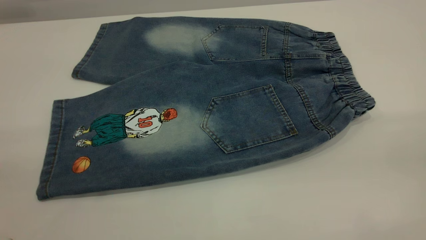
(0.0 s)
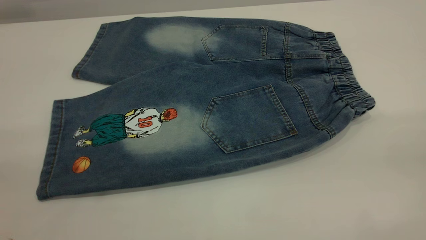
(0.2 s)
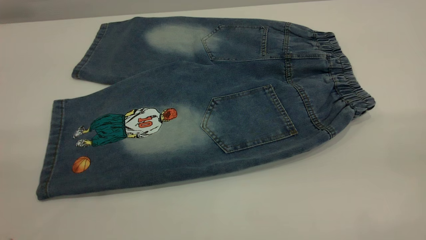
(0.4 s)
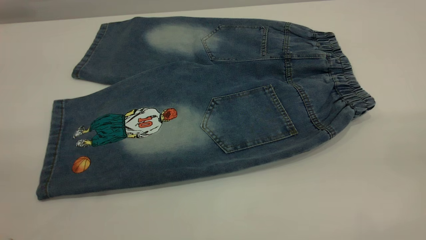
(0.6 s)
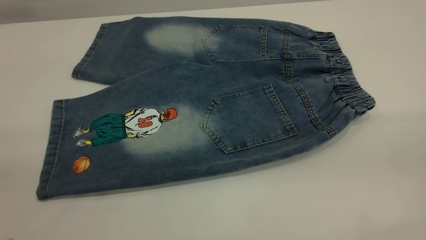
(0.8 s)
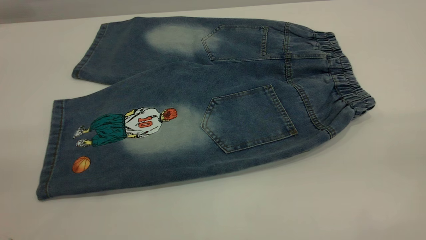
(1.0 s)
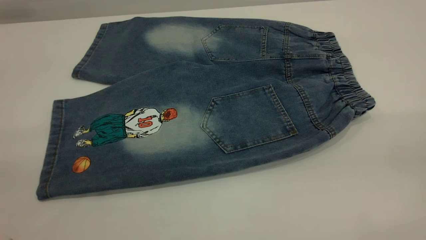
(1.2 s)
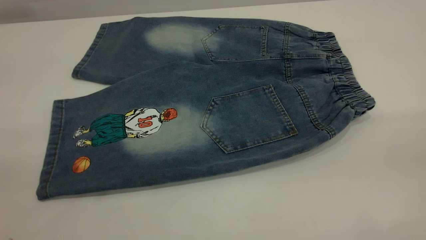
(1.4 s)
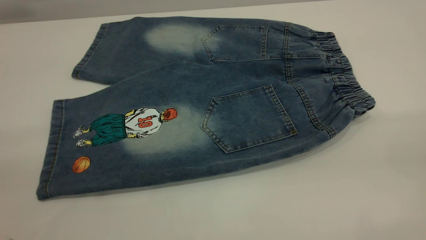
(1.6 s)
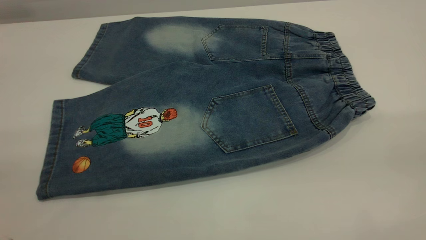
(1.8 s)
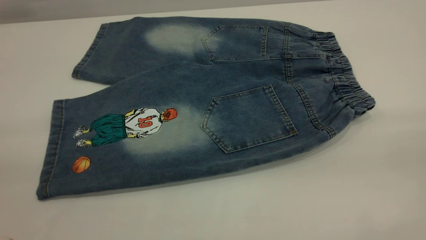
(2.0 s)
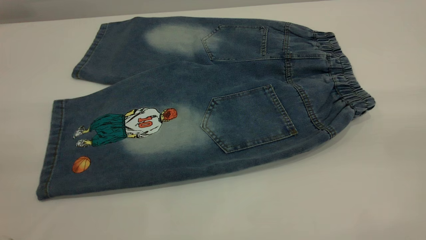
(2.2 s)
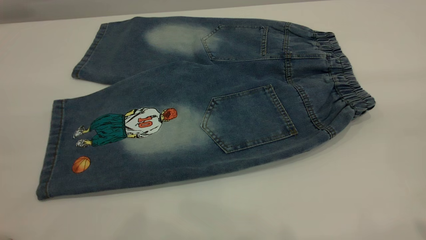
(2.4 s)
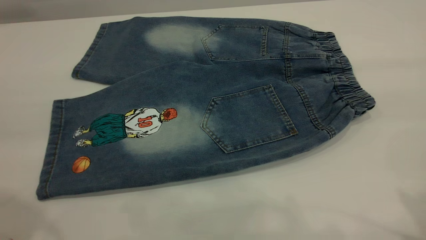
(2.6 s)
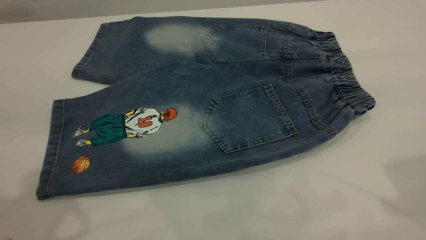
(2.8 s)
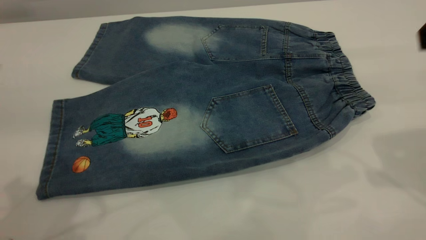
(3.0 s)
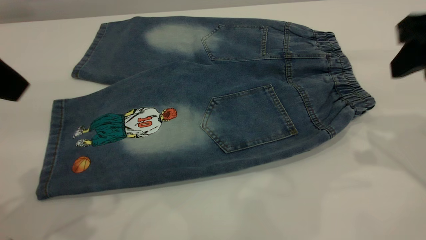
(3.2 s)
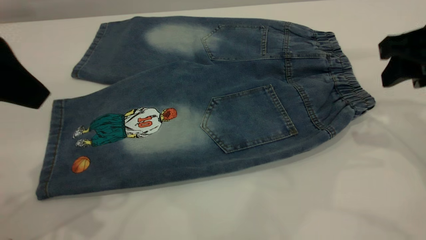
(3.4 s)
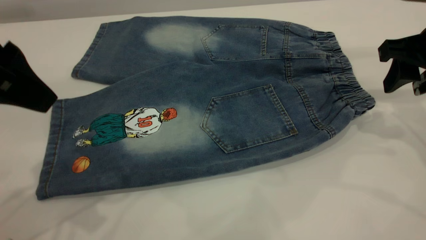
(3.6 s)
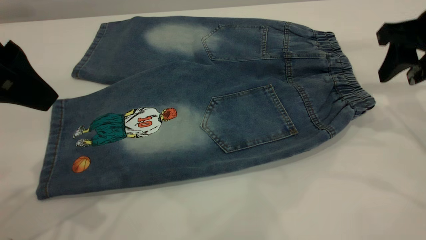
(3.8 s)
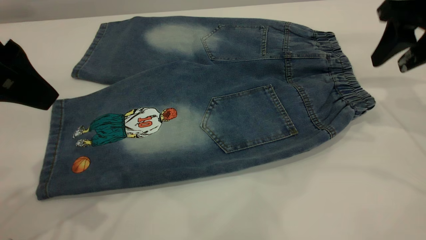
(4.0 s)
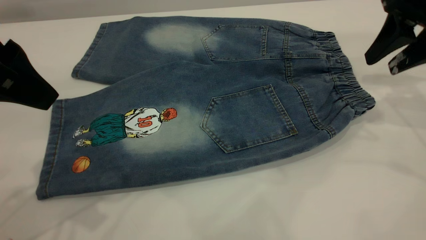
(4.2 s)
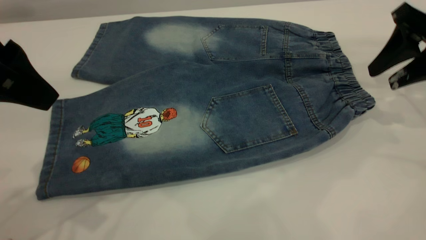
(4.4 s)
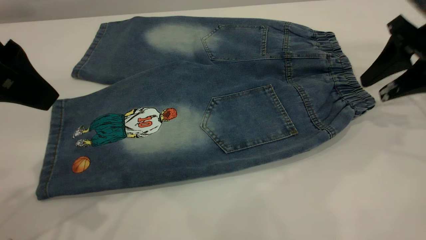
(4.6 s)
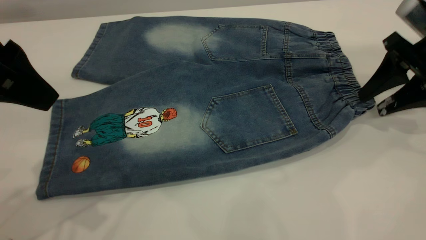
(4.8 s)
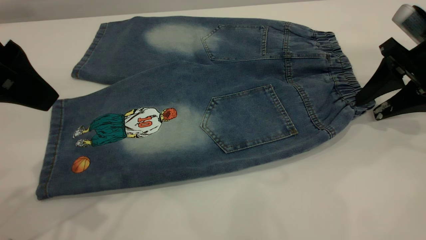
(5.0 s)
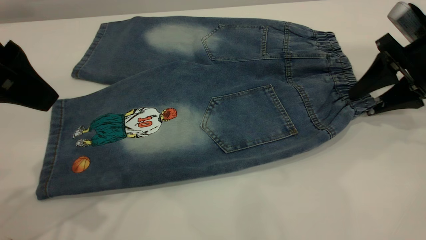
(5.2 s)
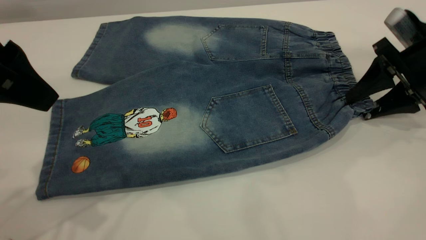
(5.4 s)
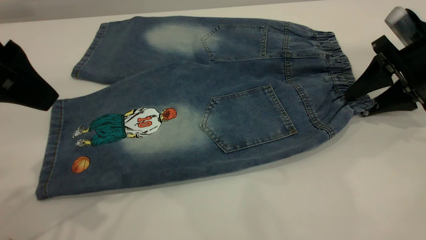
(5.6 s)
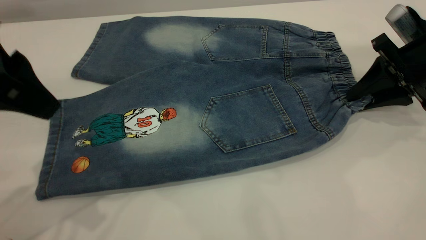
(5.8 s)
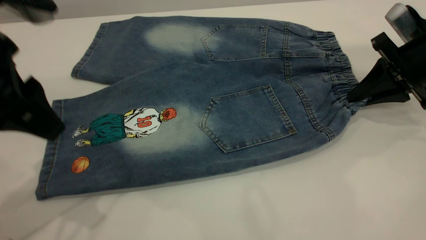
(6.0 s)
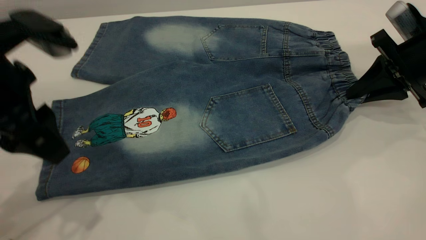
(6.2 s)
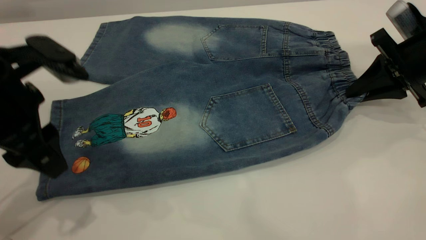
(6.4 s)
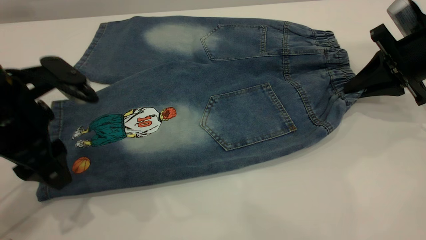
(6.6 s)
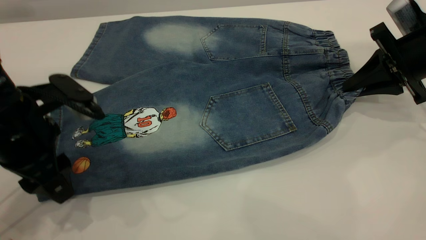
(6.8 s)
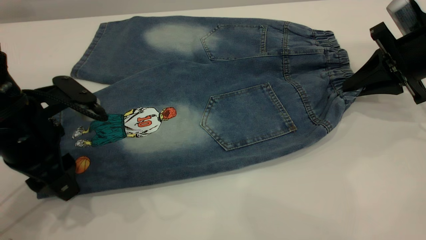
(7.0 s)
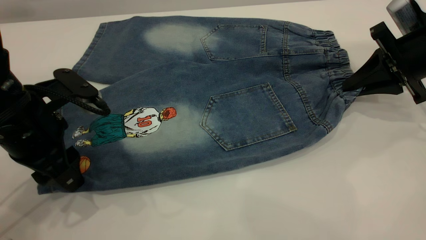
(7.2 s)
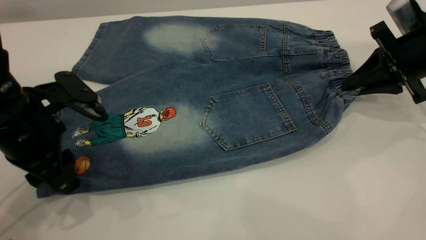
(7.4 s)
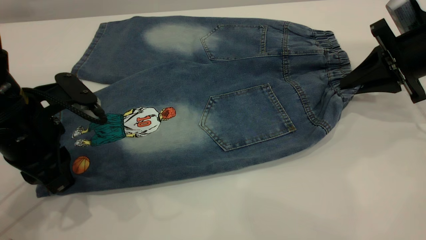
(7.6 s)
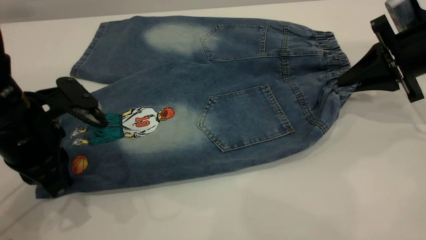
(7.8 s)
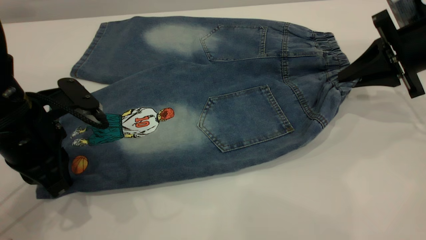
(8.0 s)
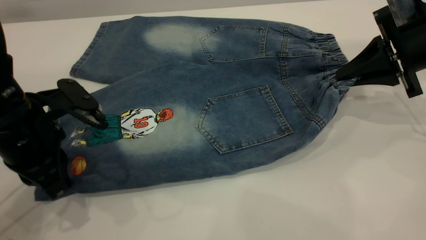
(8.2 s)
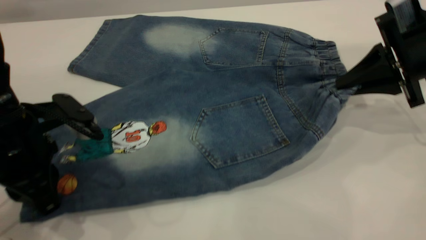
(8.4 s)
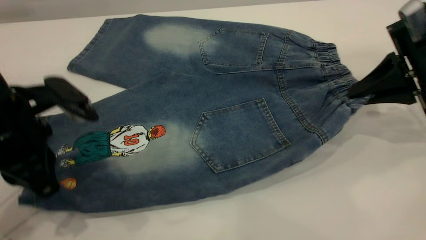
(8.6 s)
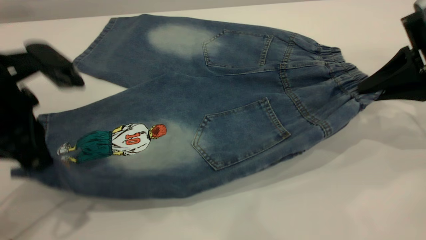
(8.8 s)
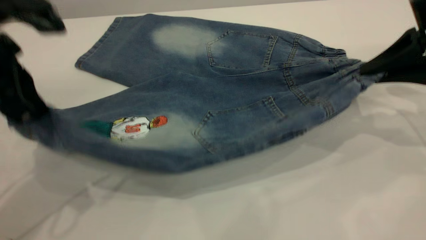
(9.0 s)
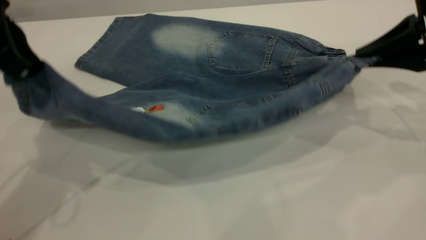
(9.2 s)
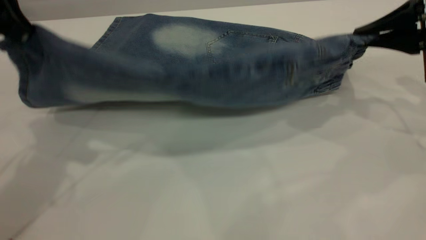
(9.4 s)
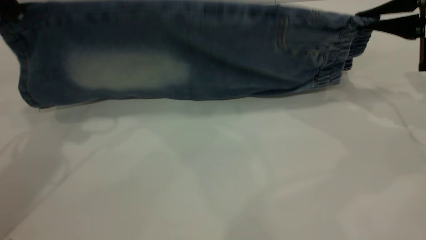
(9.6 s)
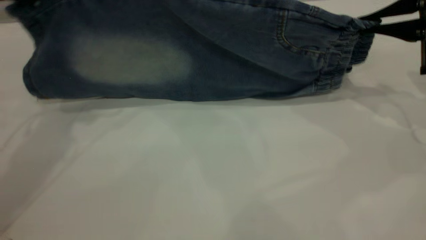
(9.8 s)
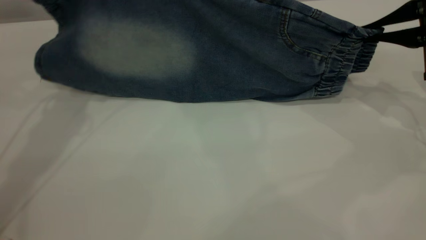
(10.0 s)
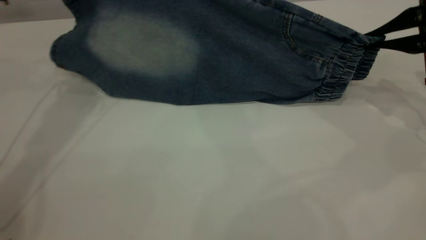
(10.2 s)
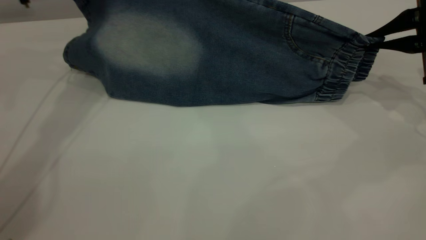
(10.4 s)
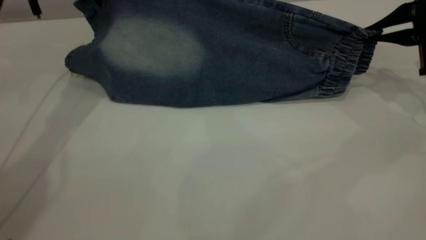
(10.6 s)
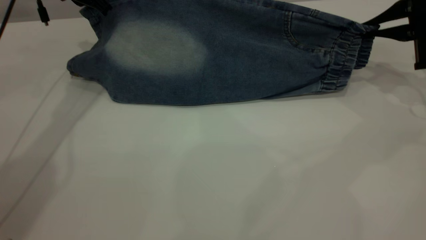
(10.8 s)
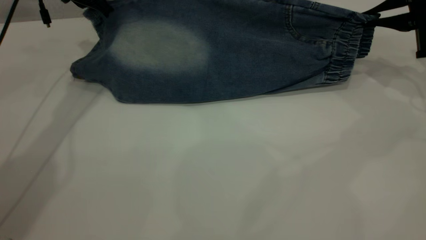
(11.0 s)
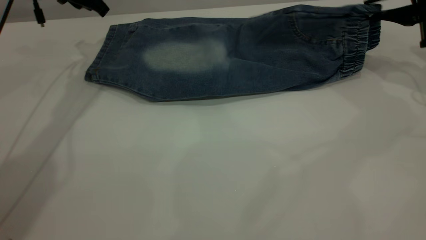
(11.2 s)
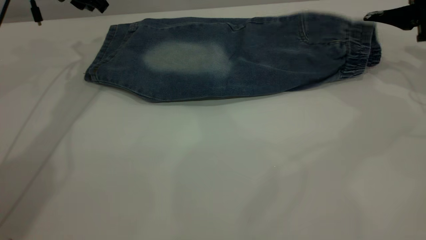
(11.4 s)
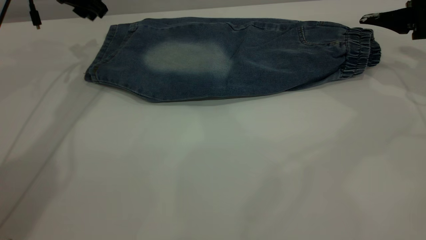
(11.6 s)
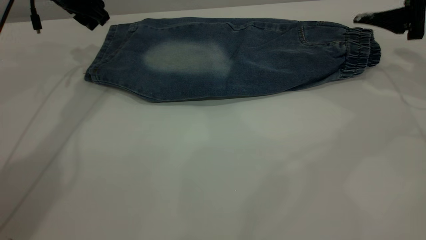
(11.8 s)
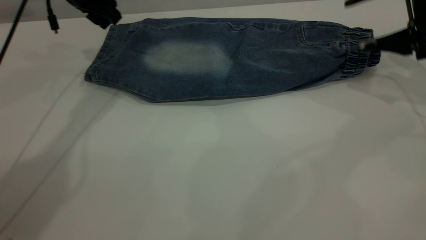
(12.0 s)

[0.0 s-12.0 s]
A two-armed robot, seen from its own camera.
Step, 0.0 to 11.6 s: Fold the bottom of the pants upward.
0.0 to 1.6 s: The two grippers keep their place.
3.0 to 4.4 s: The right gripper moves forward, downward and to the right, some 15 cm; the left gripper ends up some 5 cm from where it was.
4.4 to 6.0 s: The right gripper is displaced downward by approximately 5 cm, and closes its fingers.
6.0 to 7.6 s: The left gripper heads downward, covering approximately 10 cm, and closes.
7.6 to 9.0 s: The left gripper travels upward by about 10 cm; the right gripper moves approximately 5 cm.
9.0 to 10.4 s: The left gripper heads forward, covering about 25 cm. The right gripper changes place by some 5 cm.
10.4 to 12.0 s: The right gripper opens; the left gripper shifts by roughly 5 cm, and opens its fingers.

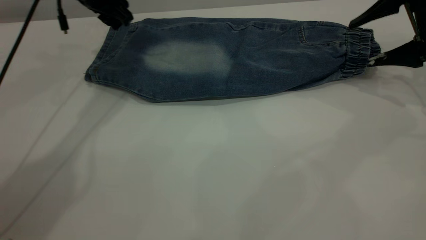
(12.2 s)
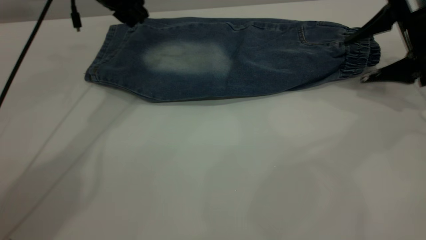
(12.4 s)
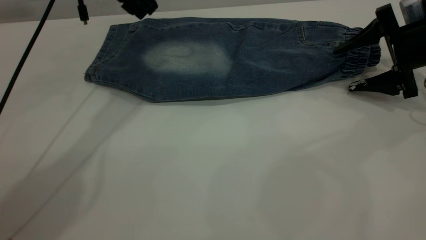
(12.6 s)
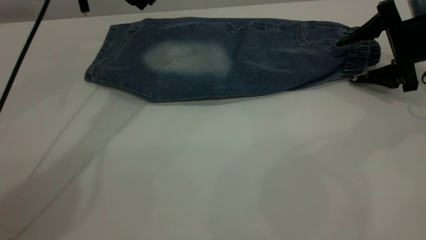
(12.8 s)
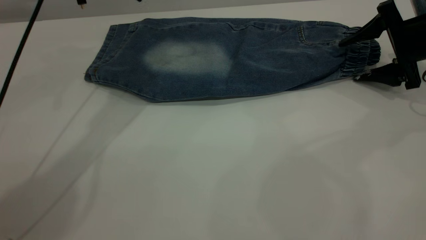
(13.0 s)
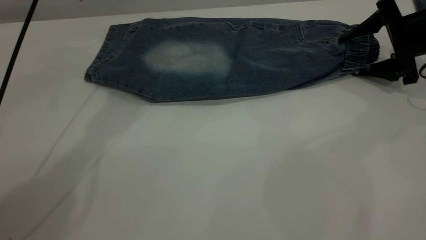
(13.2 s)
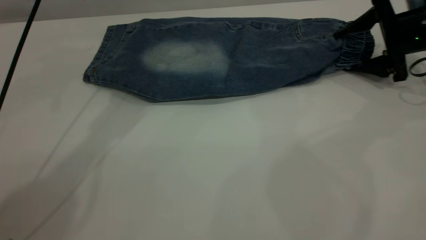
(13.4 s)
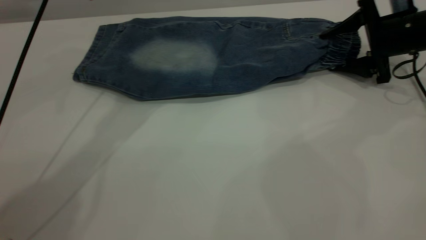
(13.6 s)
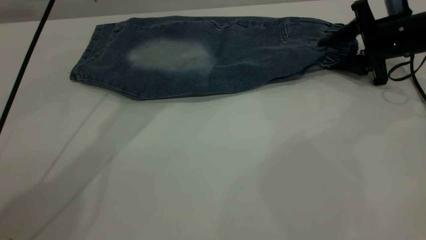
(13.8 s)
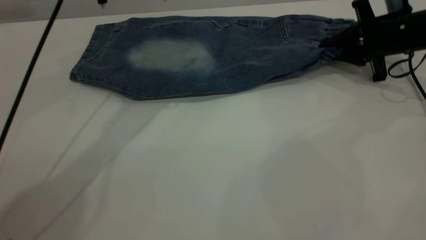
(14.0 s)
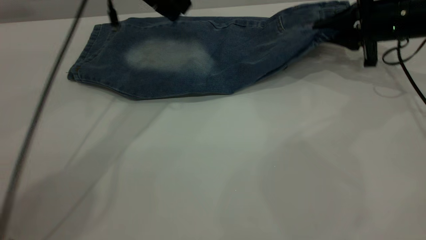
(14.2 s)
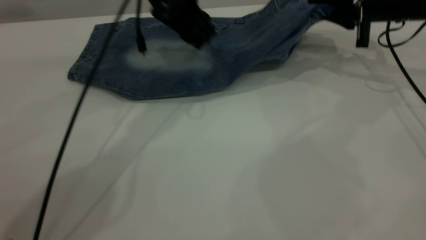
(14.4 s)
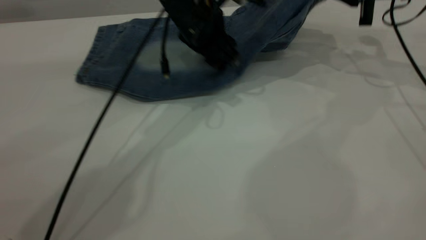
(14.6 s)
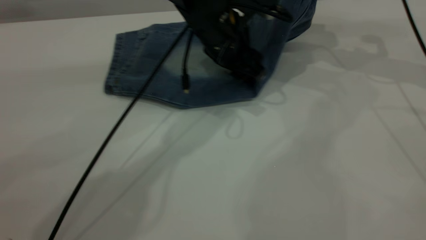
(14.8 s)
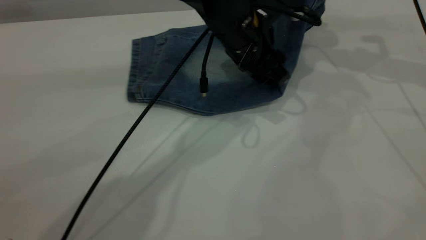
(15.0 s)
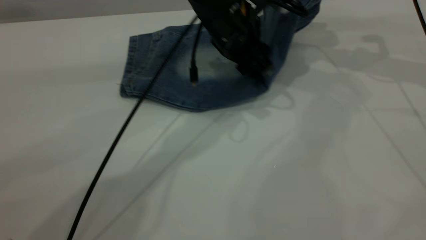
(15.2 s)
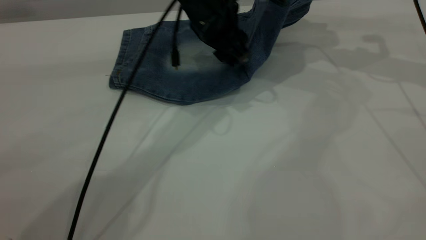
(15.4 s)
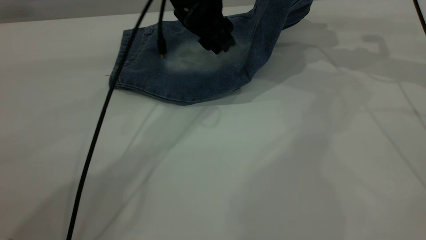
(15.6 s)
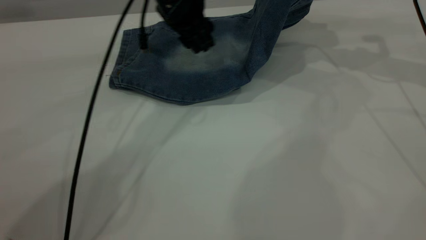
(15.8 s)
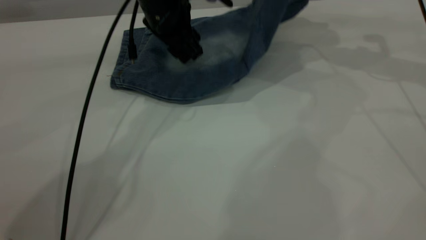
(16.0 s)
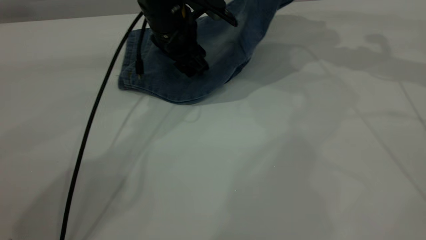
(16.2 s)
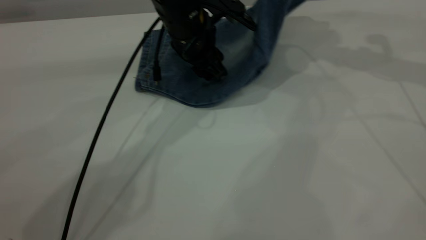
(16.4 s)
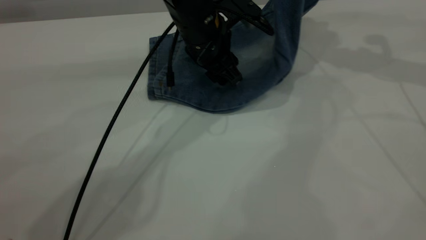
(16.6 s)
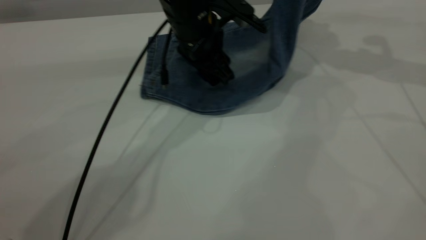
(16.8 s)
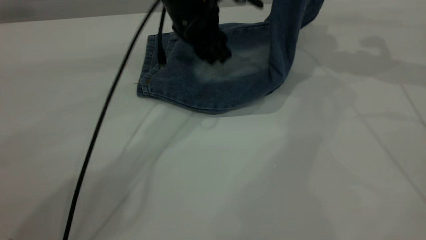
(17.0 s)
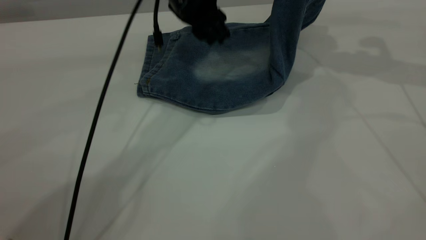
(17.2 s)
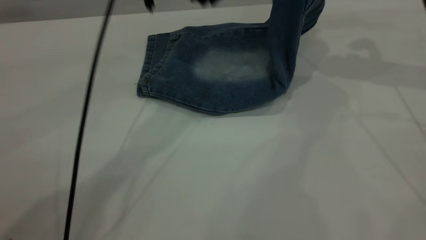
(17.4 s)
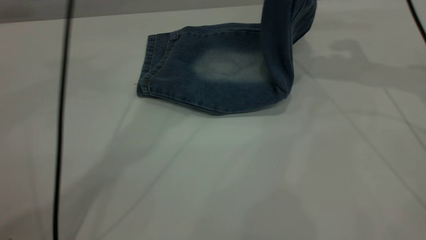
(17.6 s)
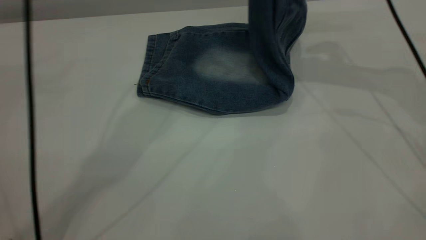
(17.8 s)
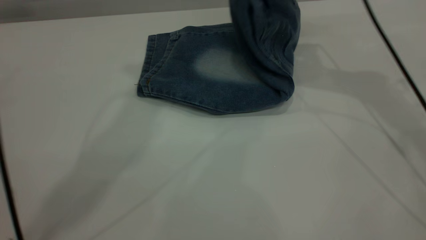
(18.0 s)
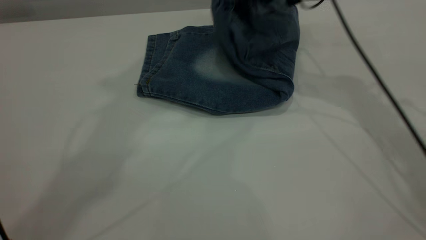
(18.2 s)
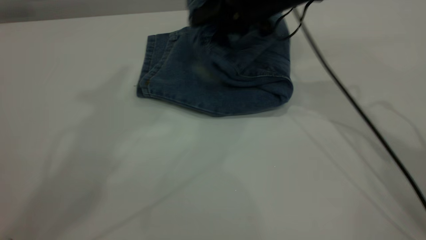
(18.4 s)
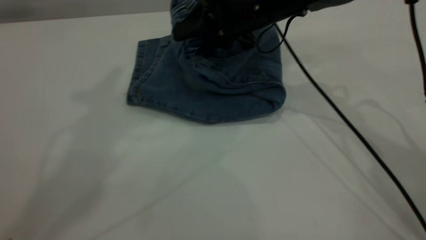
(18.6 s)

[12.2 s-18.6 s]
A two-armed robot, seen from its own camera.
12.2 to 13.8 s: The right gripper travels downward by some 5 cm, and closes; the left gripper is displaced to the right and upward by about 10 cm.
13.8 to 15.4 s: The left gripper moves to the right and downward, about 10 cm; the right gripper goes roughly 15 cm upward.
17.0 to 18.6 s: The left gripper shifts approximately 40 cm upward. The right gripper moves to the left and downward, approximately 25 cm.
